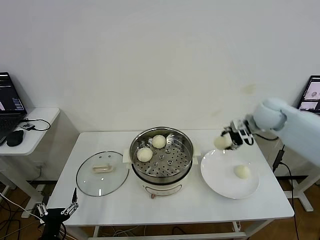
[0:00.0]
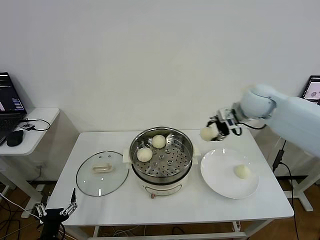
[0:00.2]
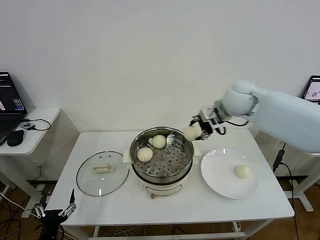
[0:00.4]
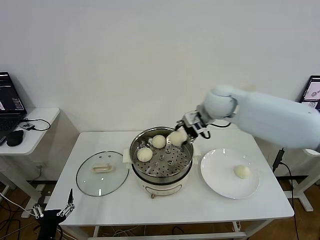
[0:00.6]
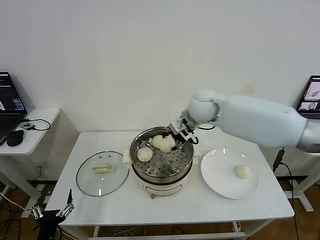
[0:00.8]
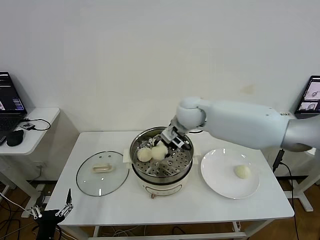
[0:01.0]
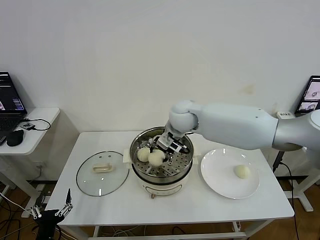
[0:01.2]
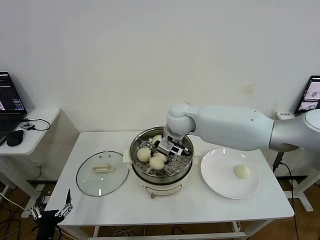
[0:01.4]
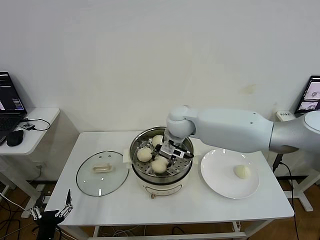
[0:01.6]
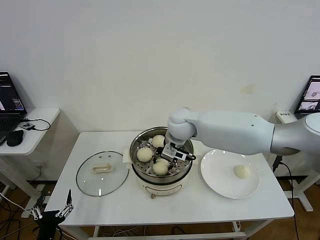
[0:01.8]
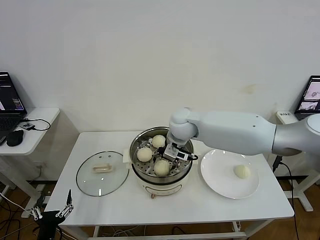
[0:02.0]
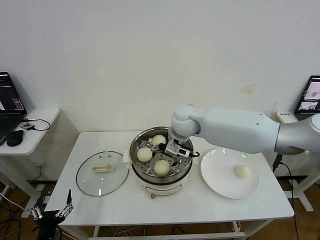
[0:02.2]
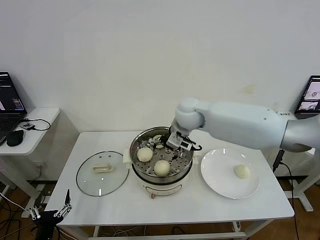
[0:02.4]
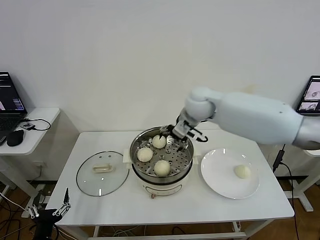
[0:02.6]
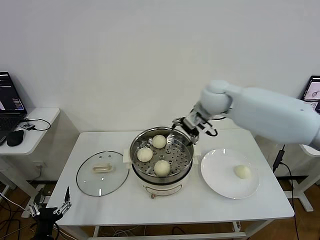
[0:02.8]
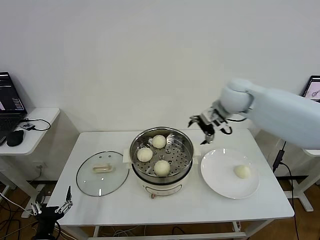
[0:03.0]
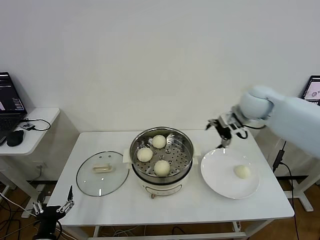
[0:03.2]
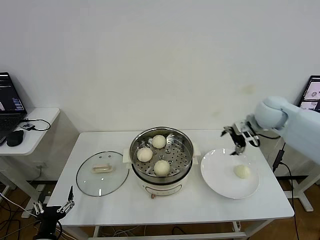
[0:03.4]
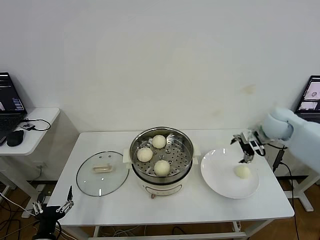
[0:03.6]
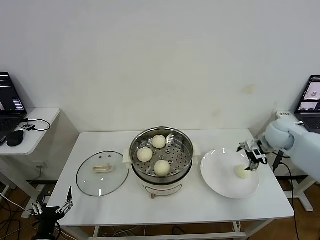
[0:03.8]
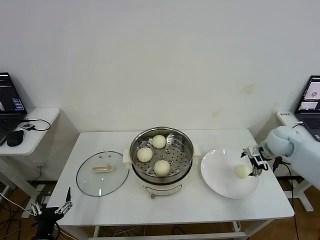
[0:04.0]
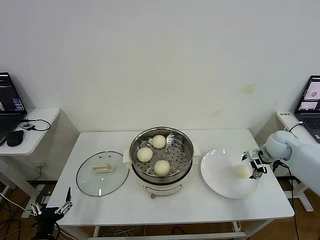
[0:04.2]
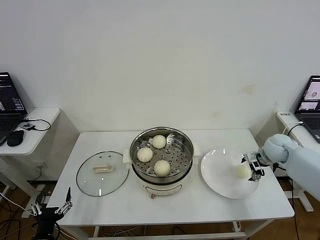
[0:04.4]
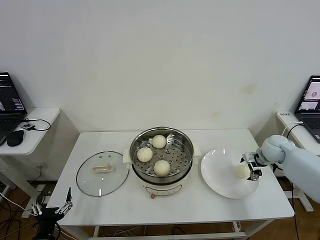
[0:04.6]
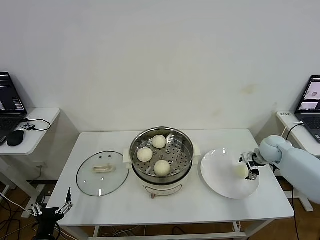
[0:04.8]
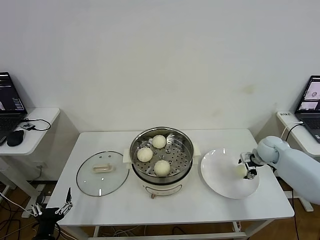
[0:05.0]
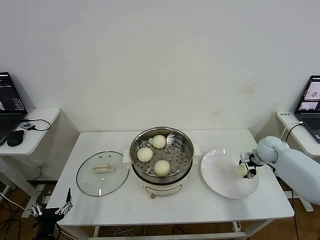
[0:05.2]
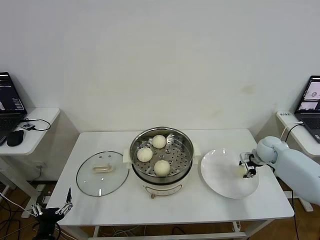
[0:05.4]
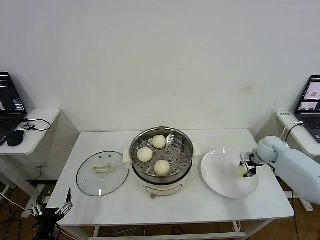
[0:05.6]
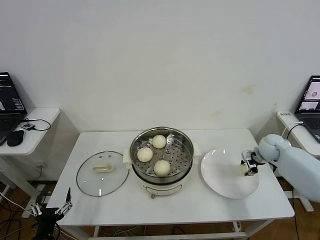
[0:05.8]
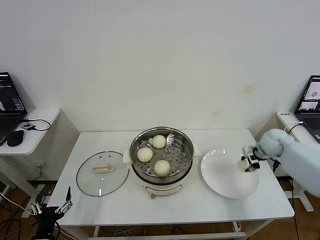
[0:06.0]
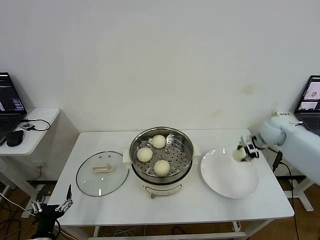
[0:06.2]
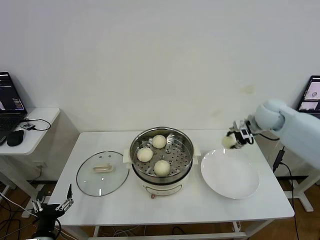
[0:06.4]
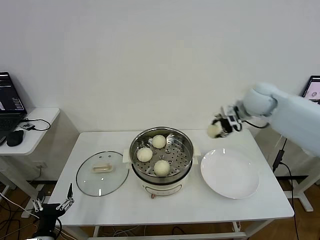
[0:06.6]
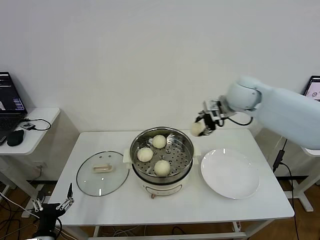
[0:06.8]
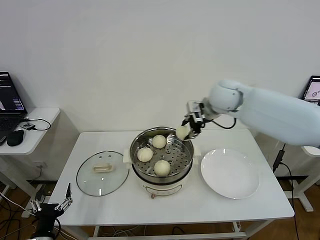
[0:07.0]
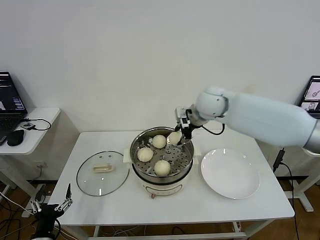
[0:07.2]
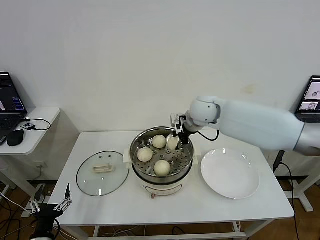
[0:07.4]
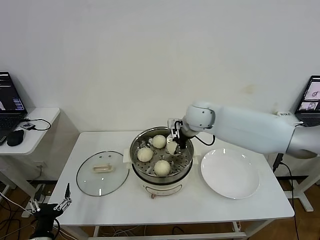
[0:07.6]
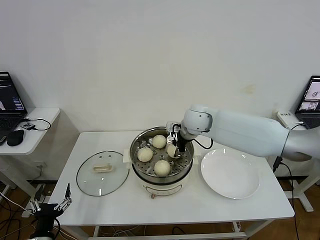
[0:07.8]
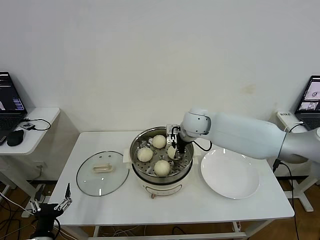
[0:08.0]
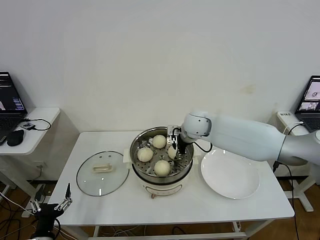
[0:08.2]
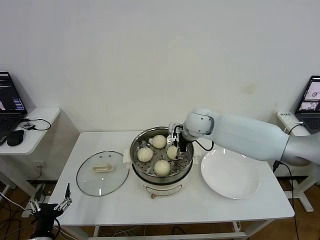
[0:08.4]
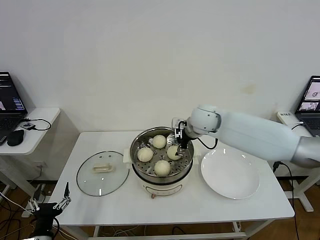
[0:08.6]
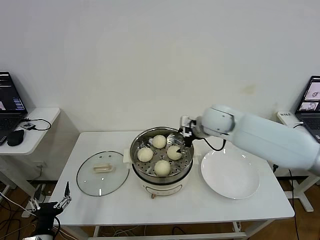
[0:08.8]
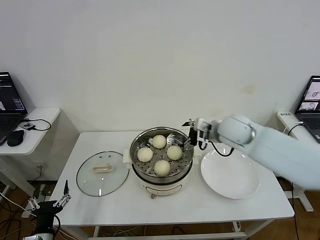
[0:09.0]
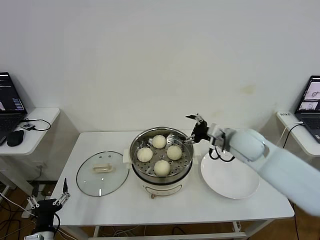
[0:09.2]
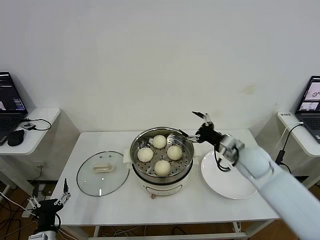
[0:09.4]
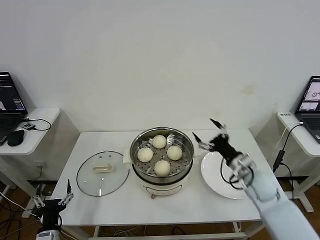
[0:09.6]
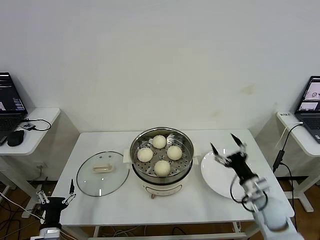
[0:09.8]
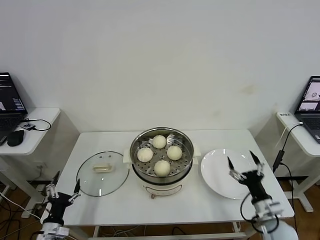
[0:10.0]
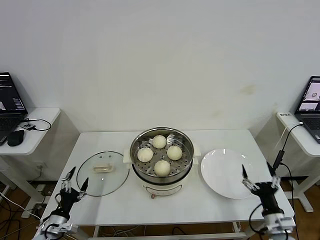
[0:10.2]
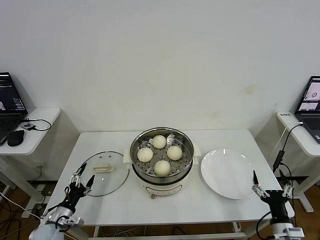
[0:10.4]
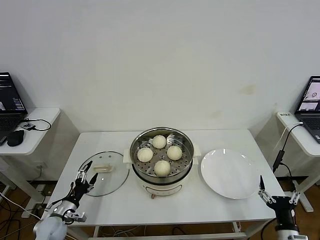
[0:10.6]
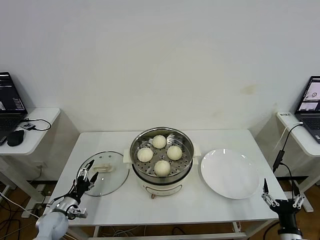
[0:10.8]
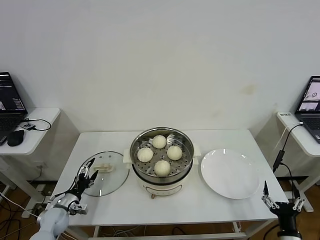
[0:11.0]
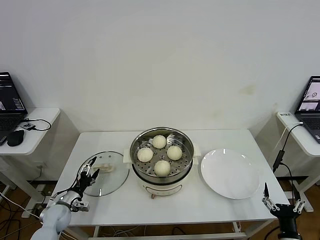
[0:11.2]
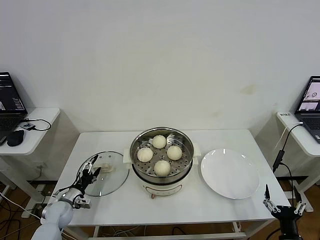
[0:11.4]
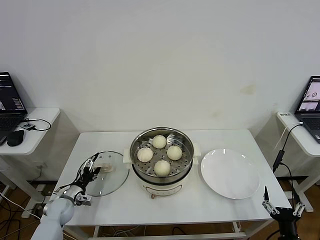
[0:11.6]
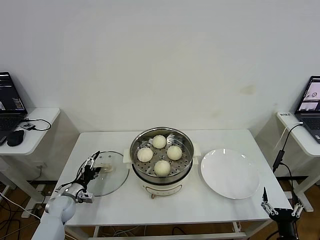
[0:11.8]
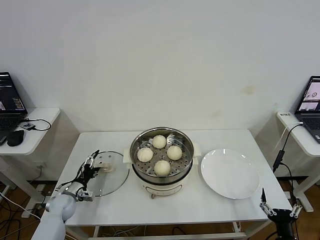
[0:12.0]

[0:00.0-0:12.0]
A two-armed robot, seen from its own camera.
Step, 0:00.0 to 0:02.2: Place the baozi on the steamer with right gripper.
Step, 0:02.4 to 0:05.6: Grasp the baozi in the plate with right gripper.
Step, 0:06.0 to 0:08.4: Place the baozi on the steamer with right gripper.
0:00.0 to 0:01.6: The right gripper travels to the left by about 25 cm.
0:01.6 to 0:03.0: The right gripper is displaced to the right and upward by some 20 cm, and opens up.
0:03.0 to 0:04.4: The right gripper moves downward and to the right, about 25 cm.
0:04.4 to 0:06.0: The right gripper closes up.
0:06.0 to 0:07.6: The right gripper goes about 30 cm to the left.
0:07.6 to 0:09.0: The right gripper goes approximately 10 cm to the right and backward, and opens.
0:09.0 to 0:10.4: The right gripper heads backward, downward and to the right, covering about 40 cm. Meanwhile the left gripper is displaced forward by roughly 10 cm.
0:10.4 to 0:12.0: The right gripper is displaced backward by about 5 cm; the left gripper heads forward, covering roughly 10 cm.

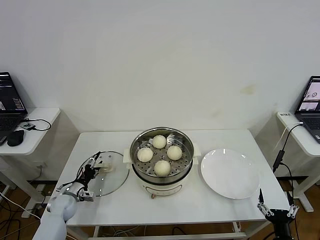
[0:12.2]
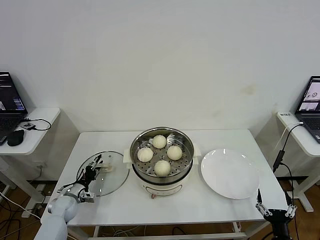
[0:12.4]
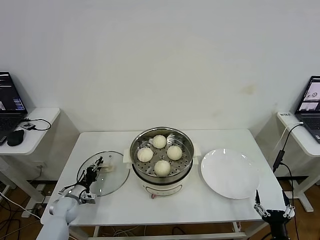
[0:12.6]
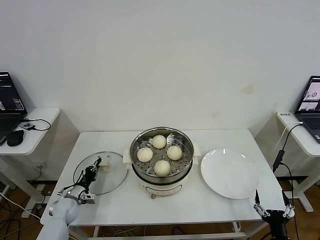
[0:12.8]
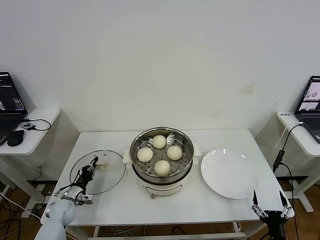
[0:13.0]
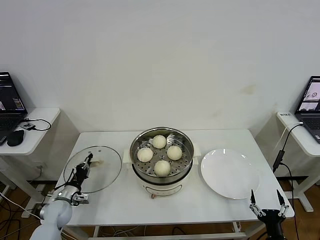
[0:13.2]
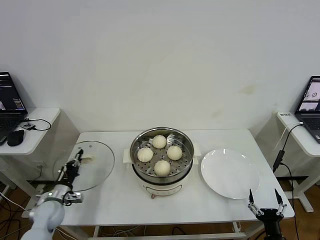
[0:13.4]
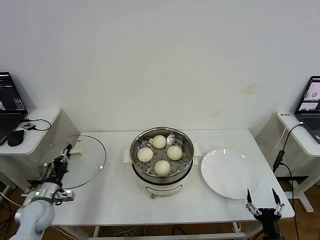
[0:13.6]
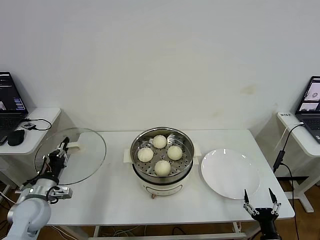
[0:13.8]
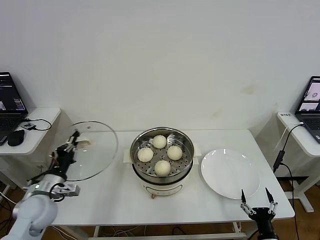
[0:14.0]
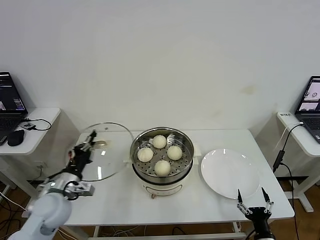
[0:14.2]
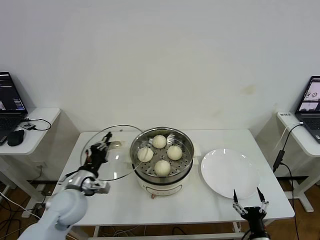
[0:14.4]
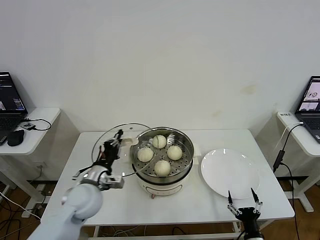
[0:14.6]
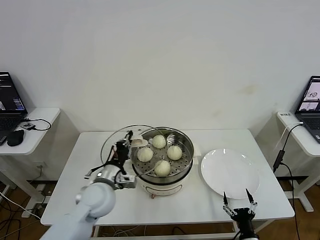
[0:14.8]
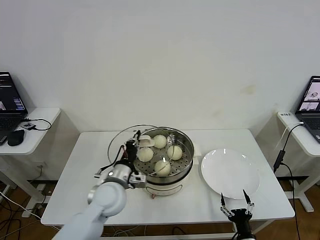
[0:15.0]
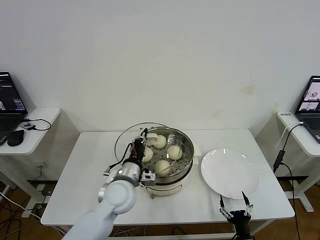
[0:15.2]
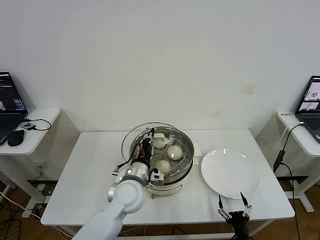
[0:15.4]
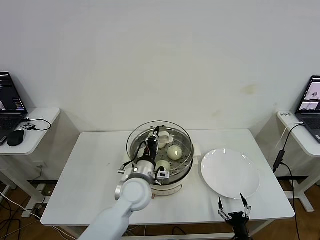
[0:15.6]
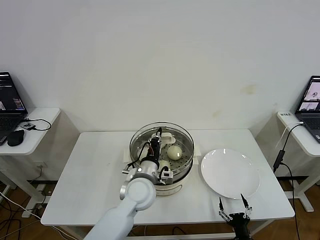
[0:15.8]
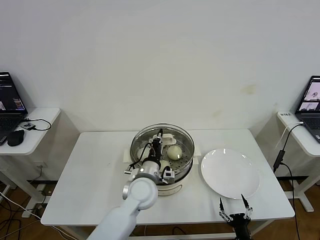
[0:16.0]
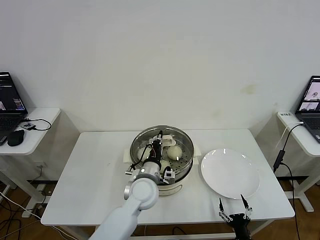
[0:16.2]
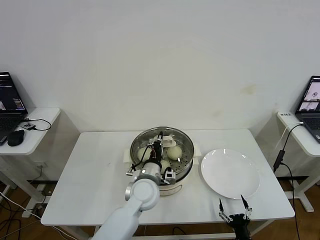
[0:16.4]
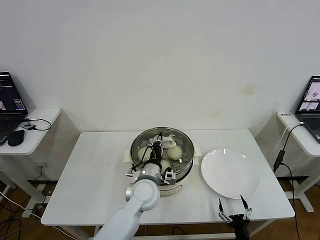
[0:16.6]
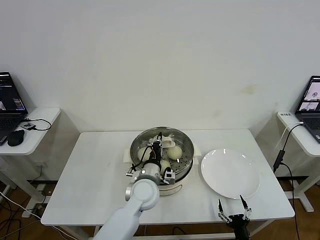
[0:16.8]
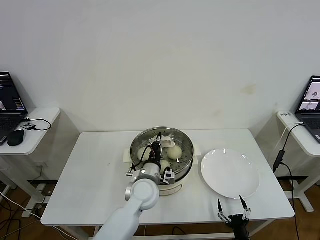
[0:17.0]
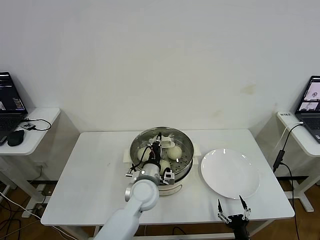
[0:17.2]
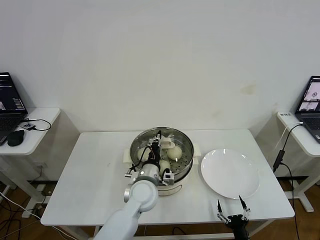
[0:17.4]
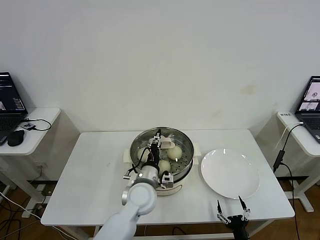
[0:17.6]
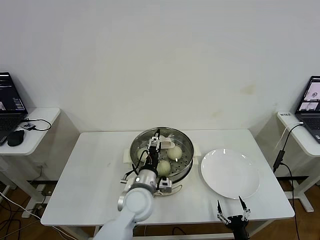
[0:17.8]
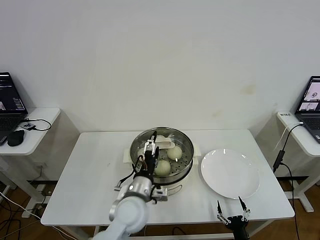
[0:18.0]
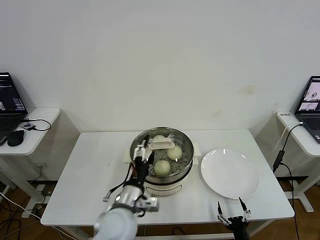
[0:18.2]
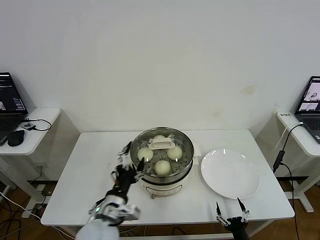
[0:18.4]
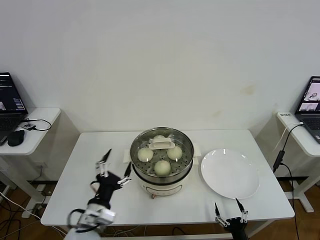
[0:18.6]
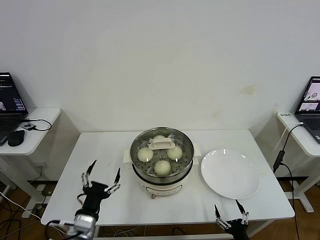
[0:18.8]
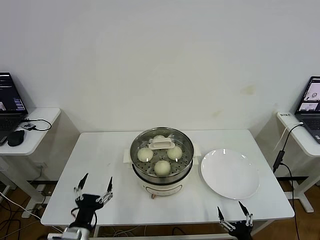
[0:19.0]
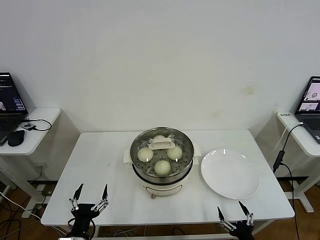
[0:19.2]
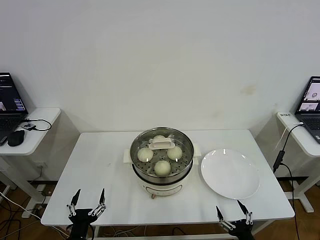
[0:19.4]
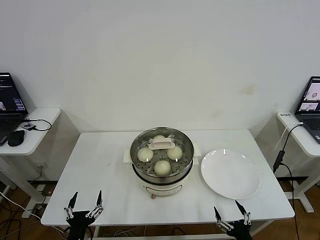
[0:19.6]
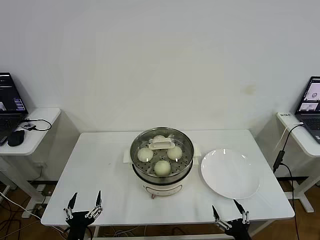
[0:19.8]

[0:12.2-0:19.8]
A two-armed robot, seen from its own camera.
Step, 0:13.2 to 0:17.6: Place the pot lid on the steamer with left gripper.
0:12.2 to 0:13.8: The left gripper goes some 15 cm upward and backward, and closes up.
0:13.8 to 0:15.2: The left gripper shifts about 25 cm to the right. Meanwhile the right gripper goes approximately 5 cm to the left.
0:15.2 to 0:16.8: The left gripper shifts some 10 cm to the right.
0:16.8 to 0:18.2: The left gripper heads backward, covering approximately 10 cm, and opens.
0:18.2 to 0:19.8: The left gripper moves to the left, backward and downward, approximately 25 cm. Meanwhile the right gripper moves upward, some 10 cm.

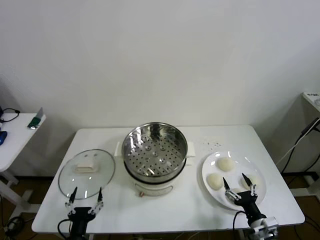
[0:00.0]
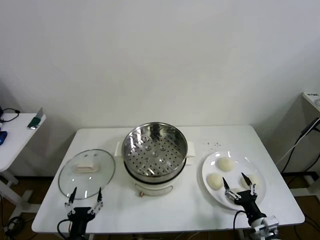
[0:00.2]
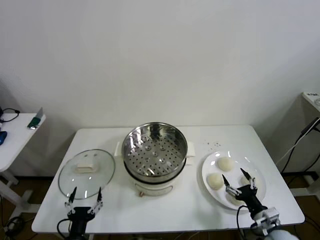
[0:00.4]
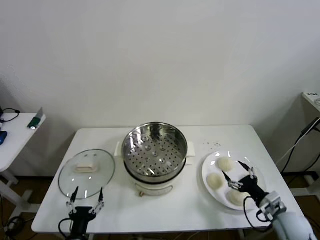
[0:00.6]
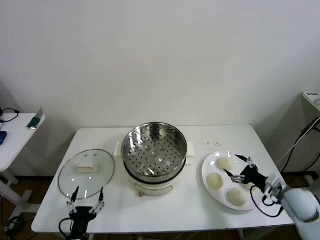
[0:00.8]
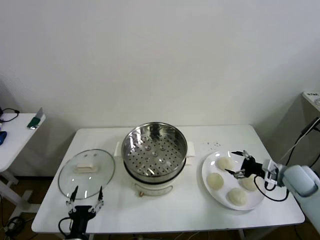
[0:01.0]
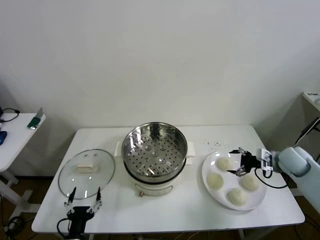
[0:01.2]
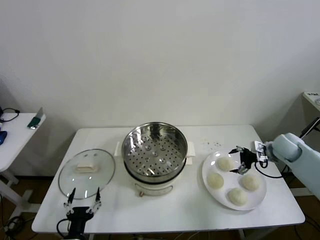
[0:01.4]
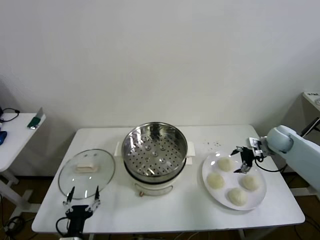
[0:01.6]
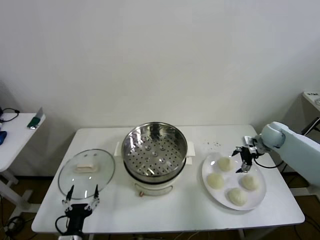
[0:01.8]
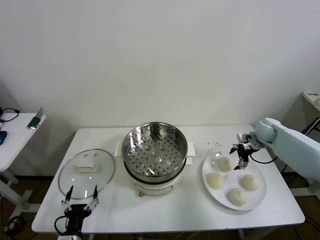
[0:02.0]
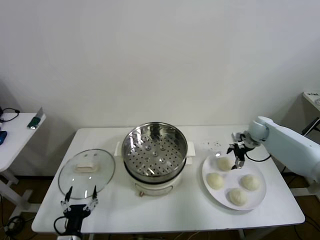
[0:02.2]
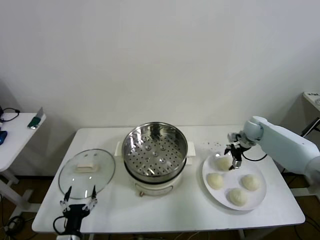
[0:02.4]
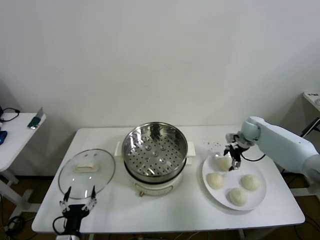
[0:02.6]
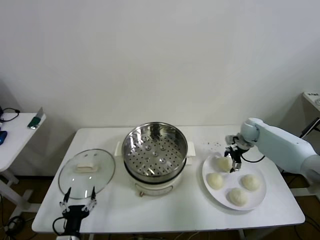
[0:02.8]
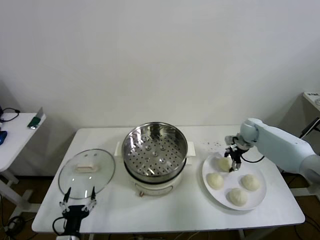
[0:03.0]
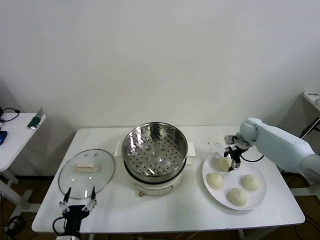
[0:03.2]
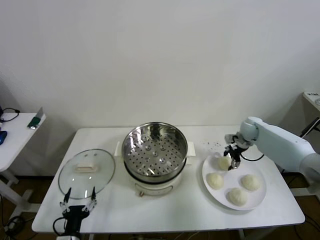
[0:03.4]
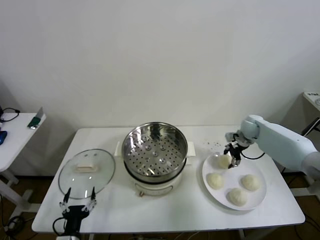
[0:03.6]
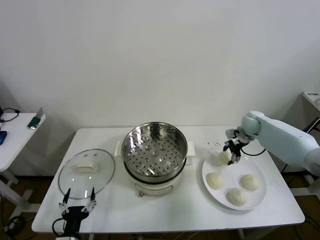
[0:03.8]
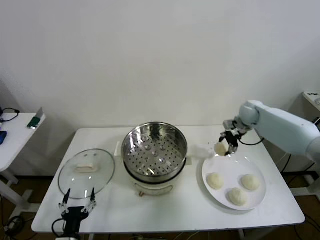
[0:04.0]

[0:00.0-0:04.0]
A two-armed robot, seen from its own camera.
Step, 0:00.0 to 0:03.2: Grasp the baozi in the plate with right gripper.
0:01.4 to 0:02.6: The right gripper heads forward and to the left, covering roughly 10 cm.
0:02.6 to 0:04.0: The right gripper travels upward by about 10 cm, and closes up.
